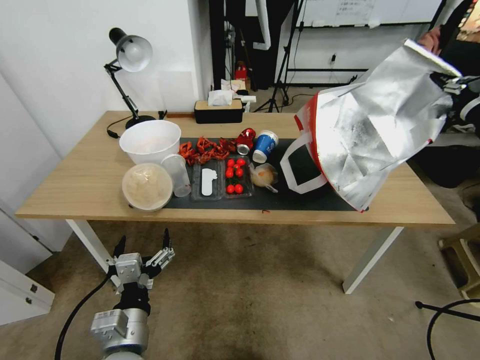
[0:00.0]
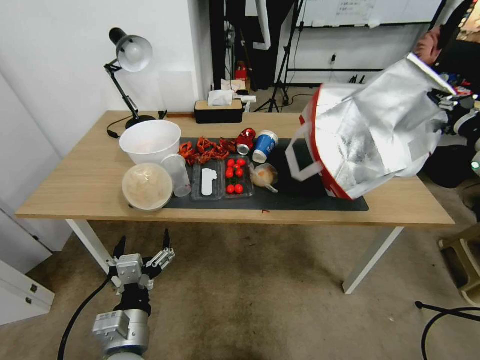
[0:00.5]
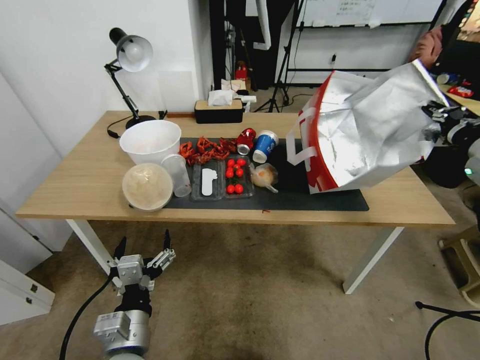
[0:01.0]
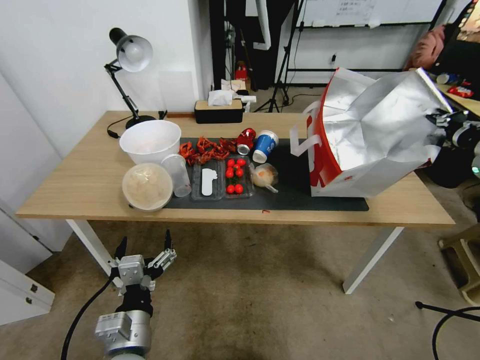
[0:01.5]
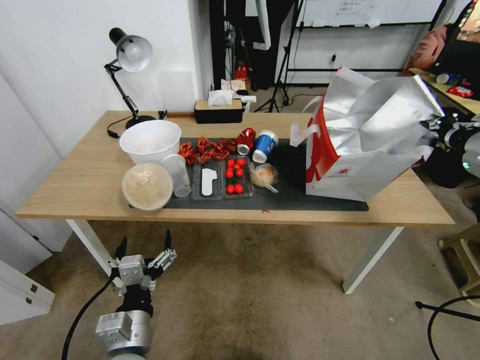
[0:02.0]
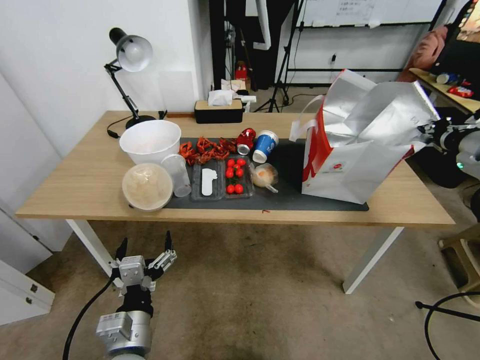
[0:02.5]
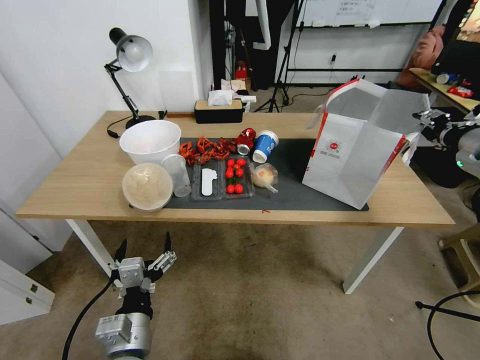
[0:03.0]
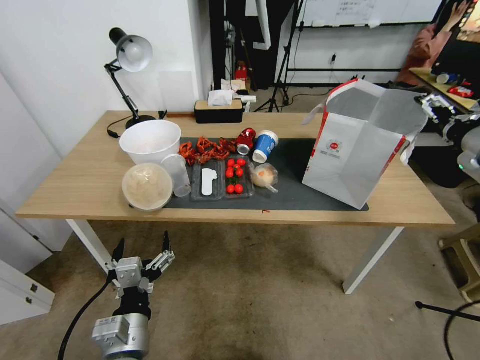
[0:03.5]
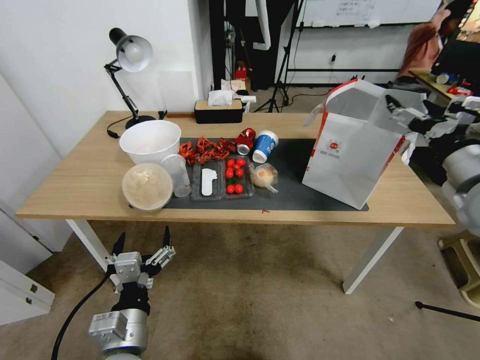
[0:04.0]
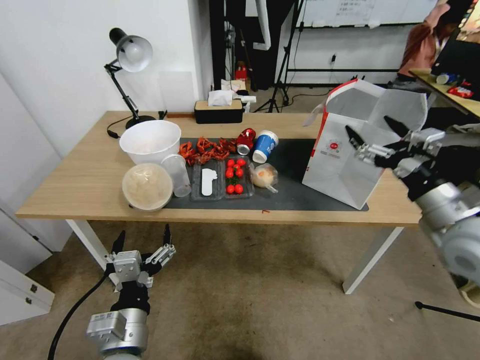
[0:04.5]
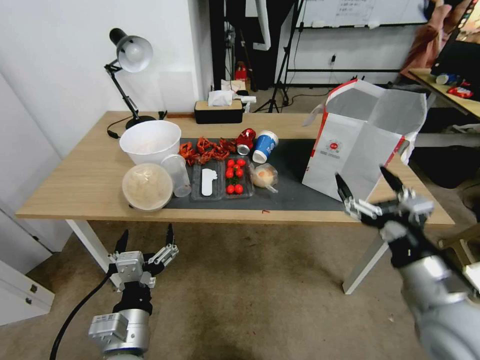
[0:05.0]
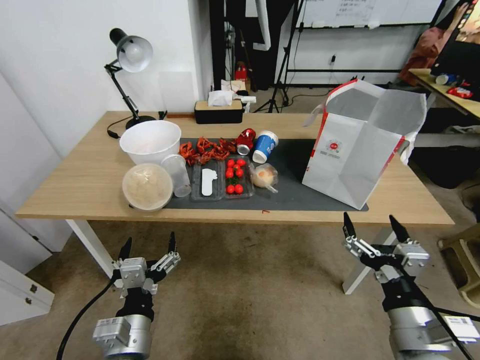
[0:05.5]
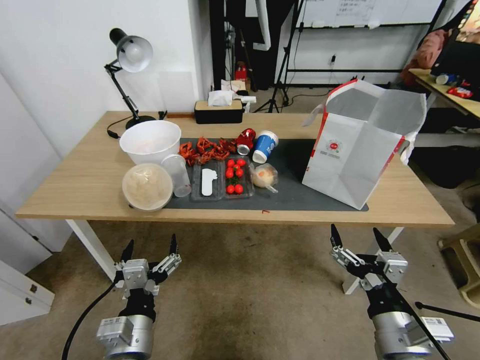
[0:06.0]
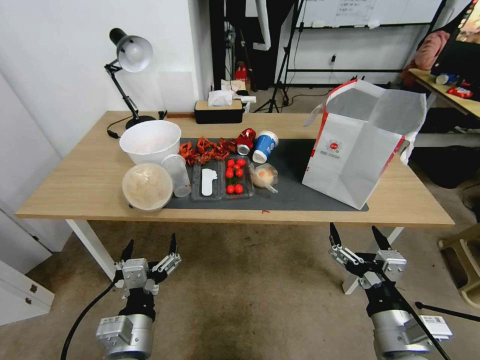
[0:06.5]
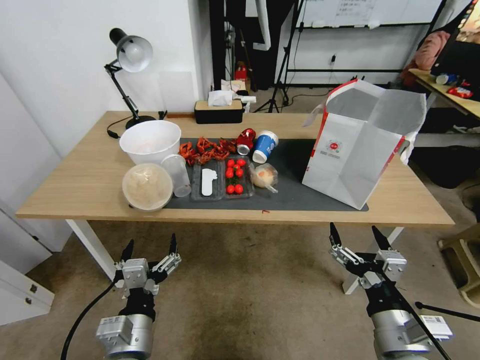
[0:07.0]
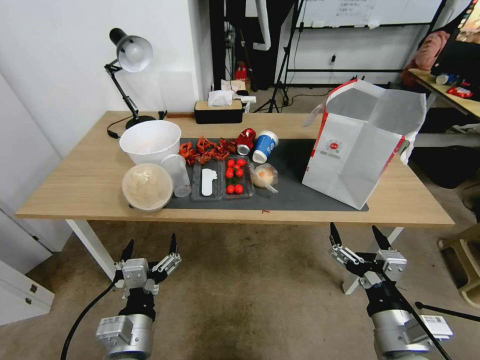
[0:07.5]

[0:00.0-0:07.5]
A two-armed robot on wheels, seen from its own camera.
Task of the whole recording: Pick up the food delivery bag from the floor and place it on the table.
0:00.0 to 0:02.0: The right gripper changes place by approximately 5 cm.
0:02.0 to 0:04.0: The right gripper shifts by roughly 5 cm, and opens.
0:04.0 to 0:05.5: The right gripper goes roughly 30 cm backward, downward and to the left.
0:05.5 to 0:07.5: There are only small adjustments of the grippers.

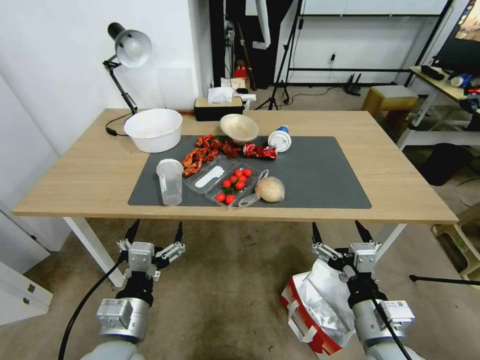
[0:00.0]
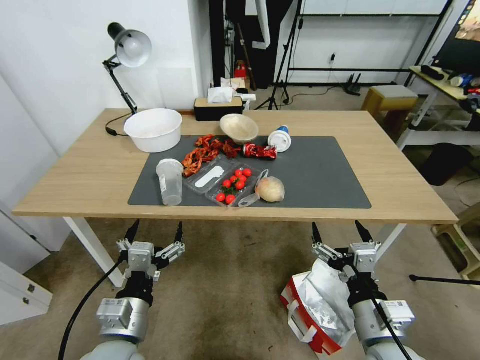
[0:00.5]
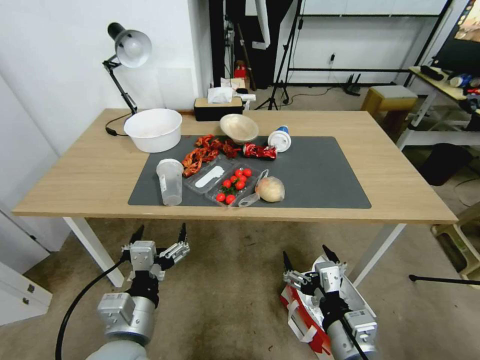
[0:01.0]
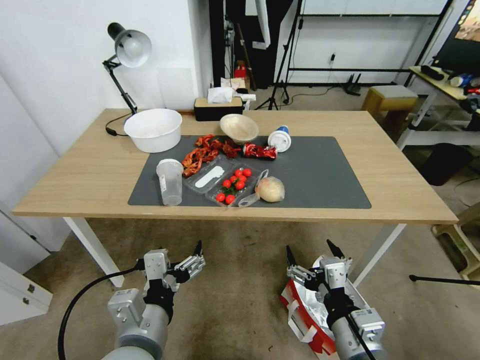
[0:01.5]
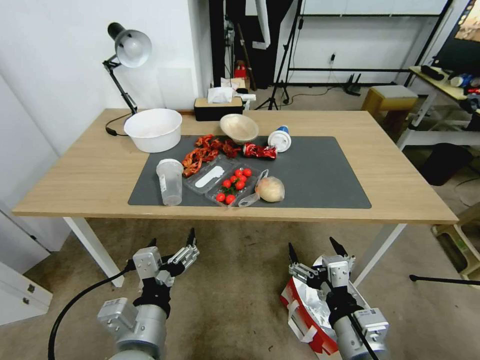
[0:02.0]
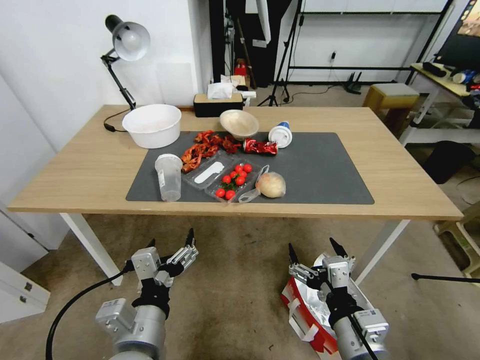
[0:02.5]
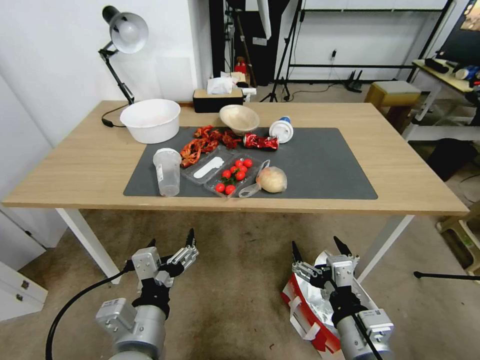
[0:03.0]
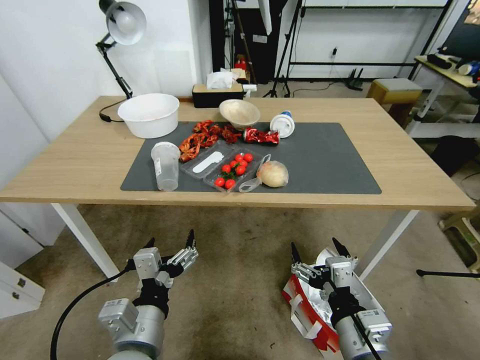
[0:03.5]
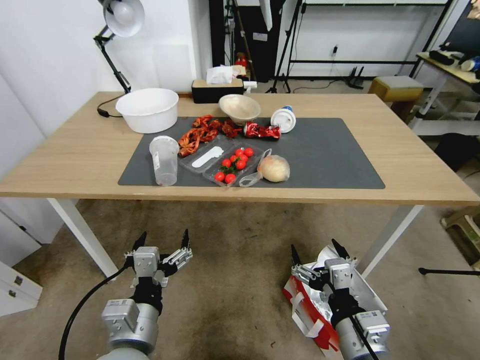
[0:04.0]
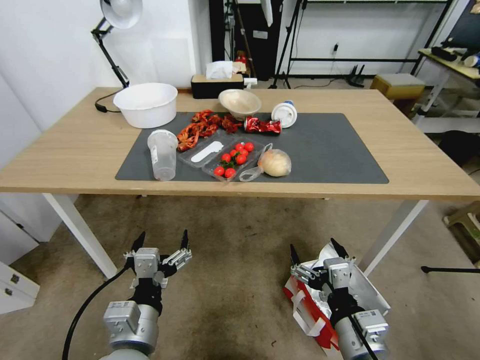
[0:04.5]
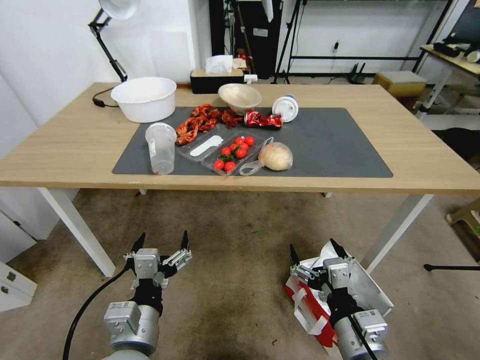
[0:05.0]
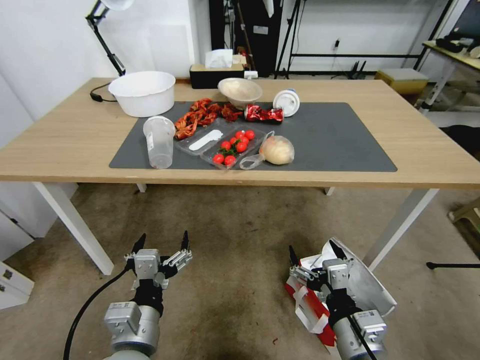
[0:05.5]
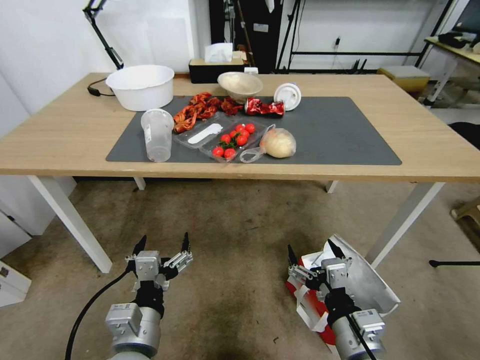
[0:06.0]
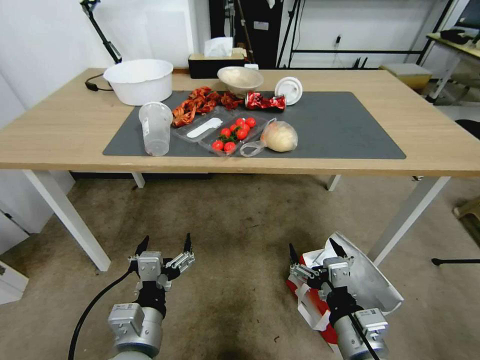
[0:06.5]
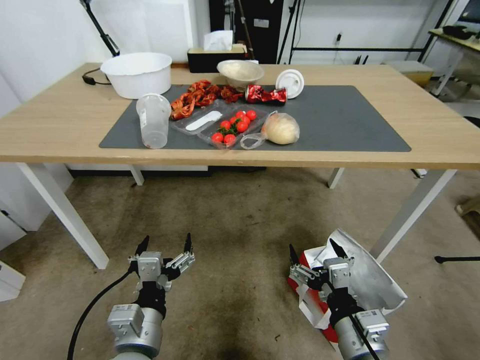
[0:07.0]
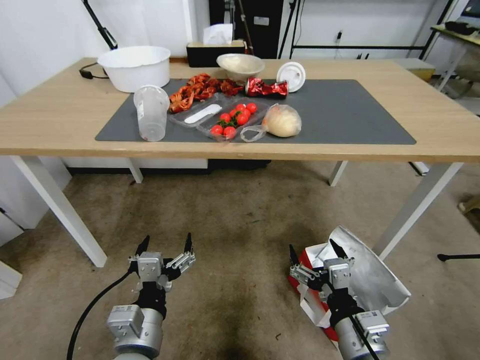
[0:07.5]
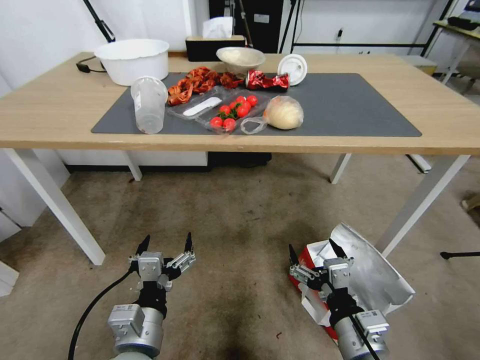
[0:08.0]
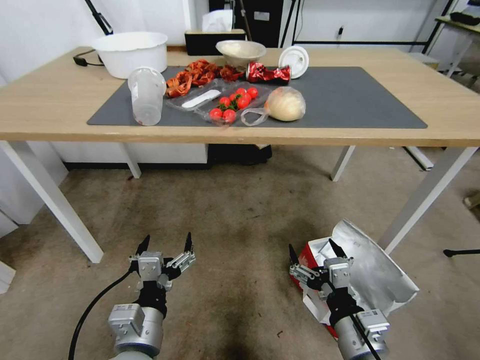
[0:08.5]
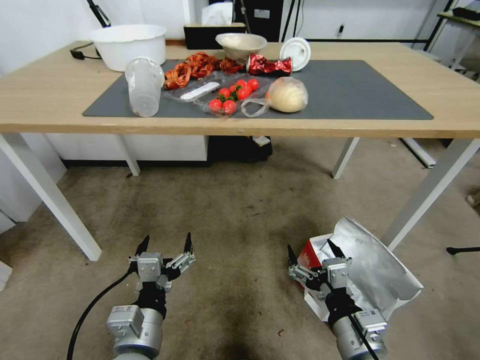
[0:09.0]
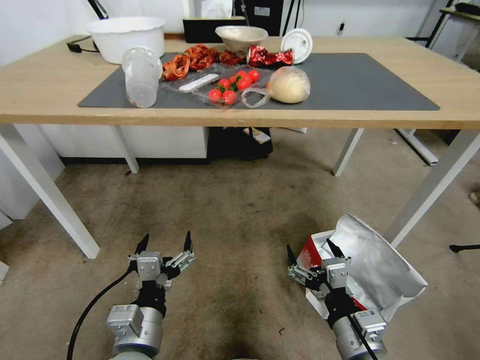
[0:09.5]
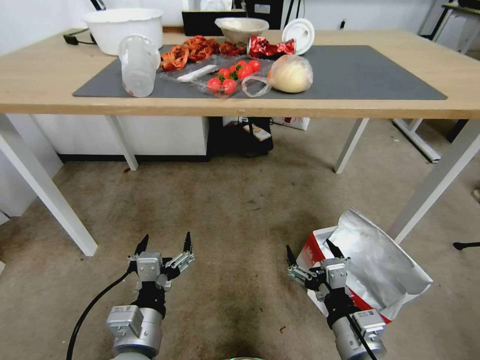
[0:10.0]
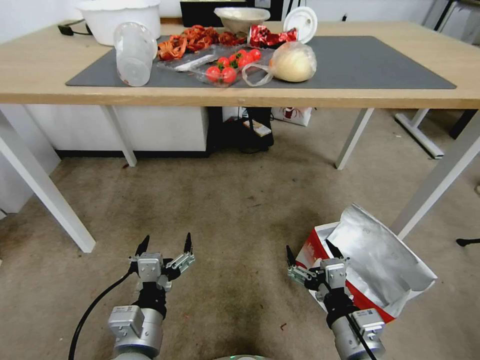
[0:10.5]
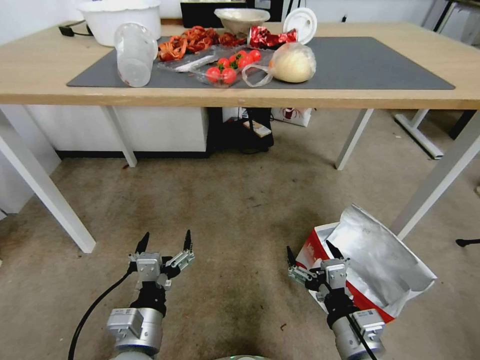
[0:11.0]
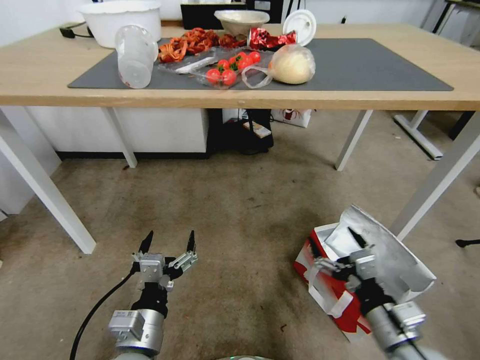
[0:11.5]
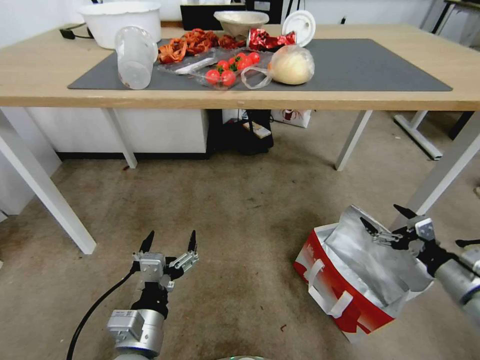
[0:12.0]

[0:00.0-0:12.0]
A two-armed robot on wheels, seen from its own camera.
Task of the whole recording: Pick up the food delivery bag from the floor and place it on the table.
0:10.0 to 0:12.0: The right gripper travels to the right by roughly 20 cm.

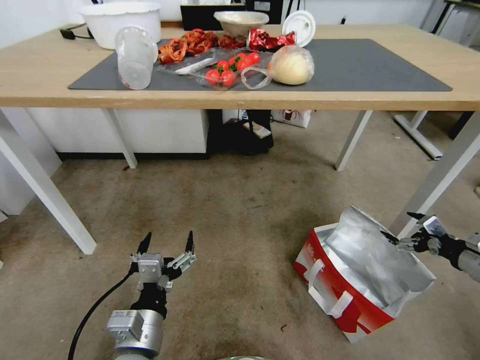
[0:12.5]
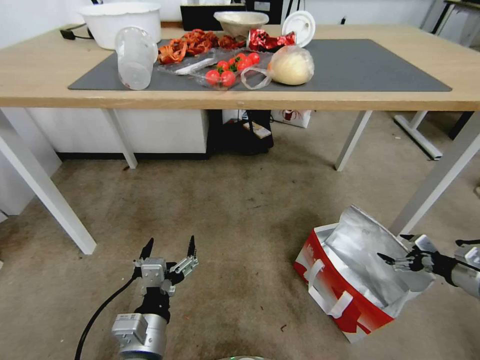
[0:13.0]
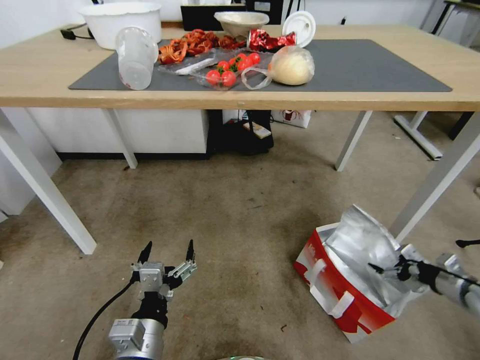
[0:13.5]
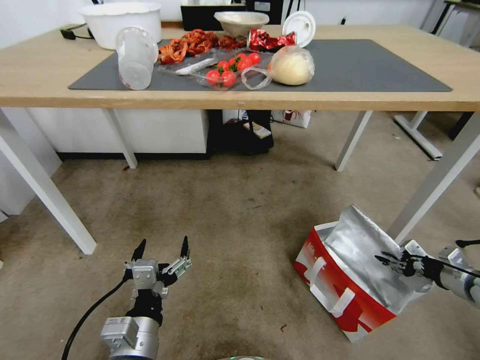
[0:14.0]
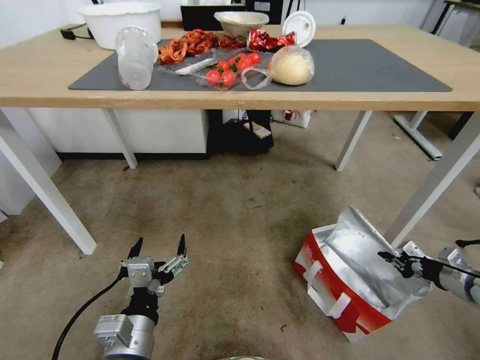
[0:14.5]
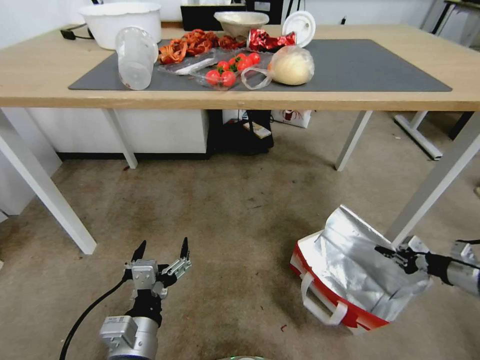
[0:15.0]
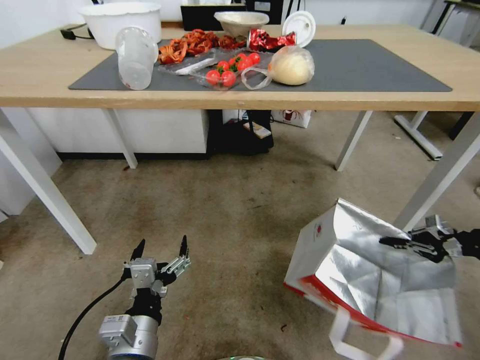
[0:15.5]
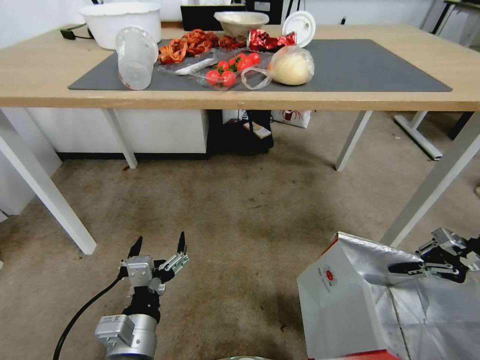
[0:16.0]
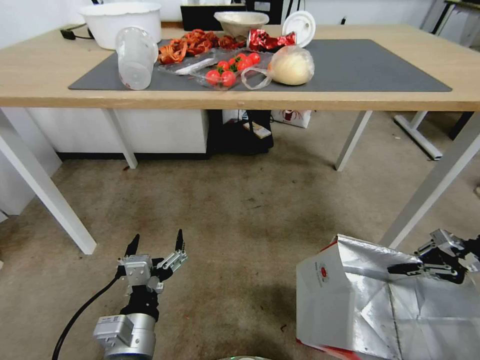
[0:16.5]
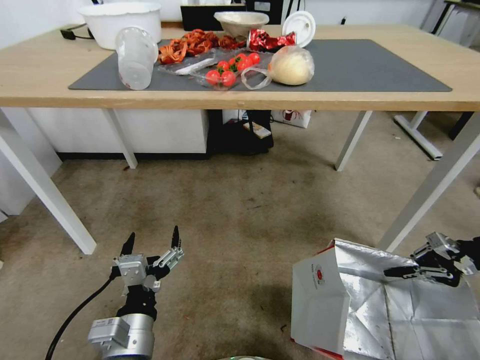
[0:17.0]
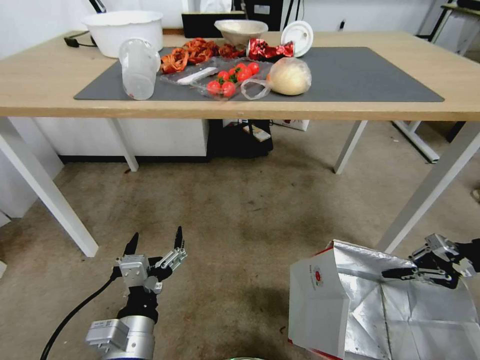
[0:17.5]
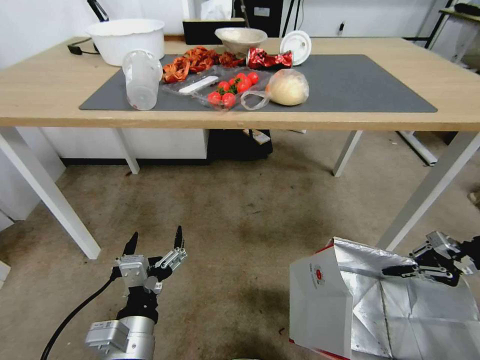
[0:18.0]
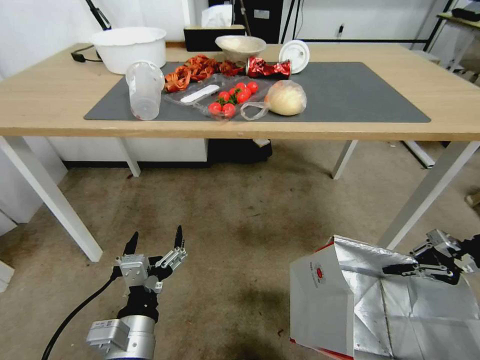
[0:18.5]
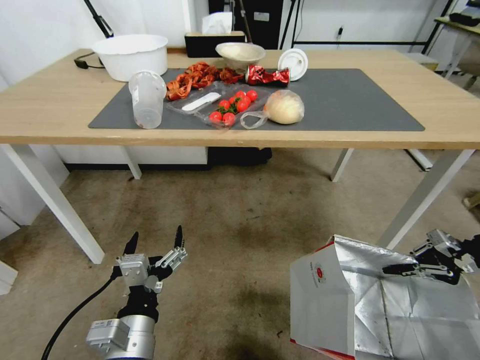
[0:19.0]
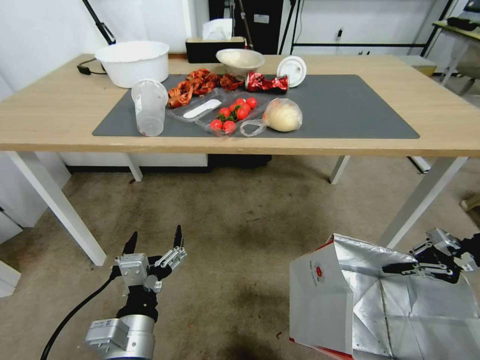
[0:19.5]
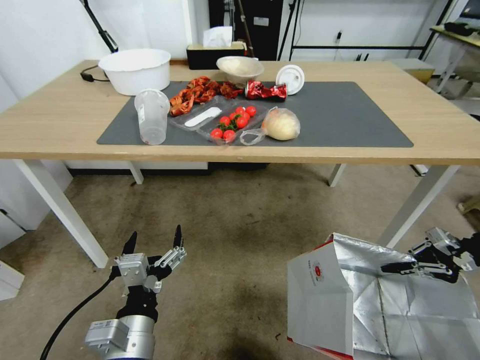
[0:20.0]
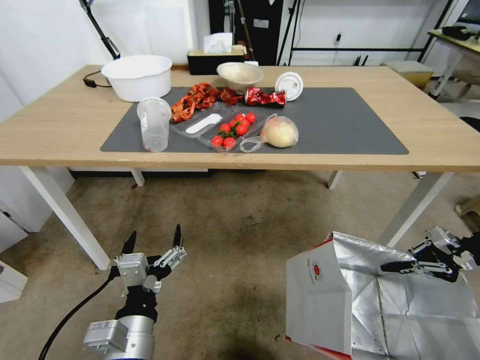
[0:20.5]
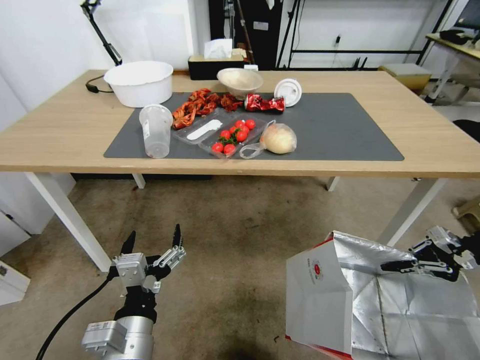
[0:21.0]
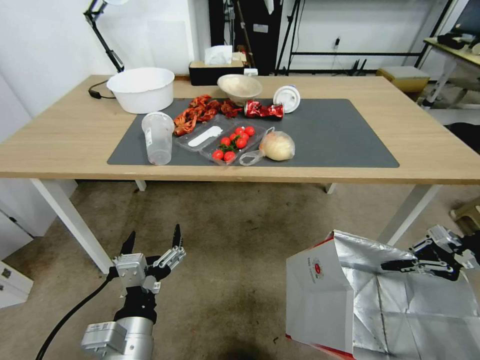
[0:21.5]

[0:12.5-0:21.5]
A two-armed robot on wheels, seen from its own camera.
Task of the whole recording: Pick up the food delivery bag from the floor and place it on the table.
0:12.5 to 0:14.5: The right gripper is displaced downward by approximately 5 cm, and closes.
0:14.5 to 0:17.0: The right gripper moves upward, some 15 cm.
